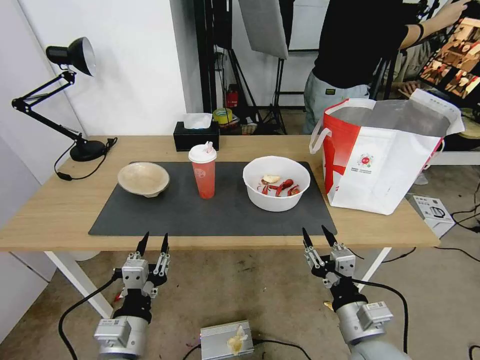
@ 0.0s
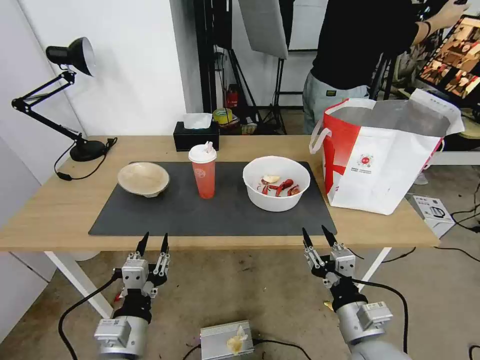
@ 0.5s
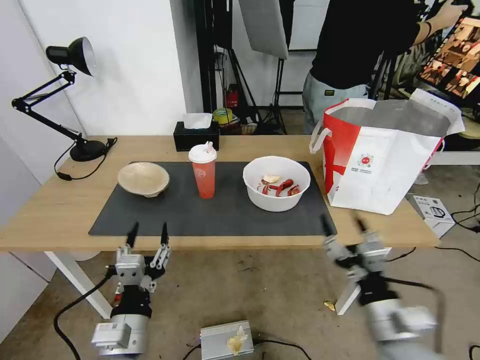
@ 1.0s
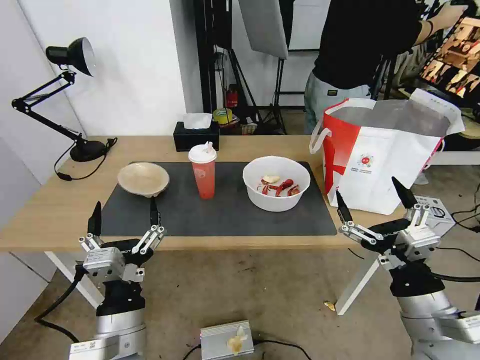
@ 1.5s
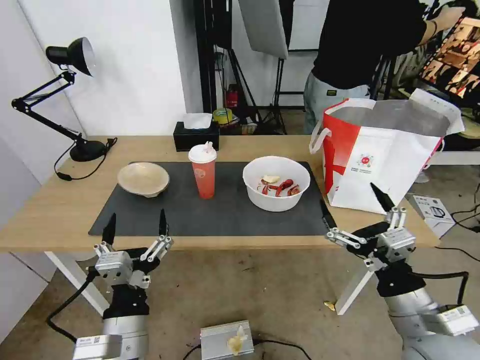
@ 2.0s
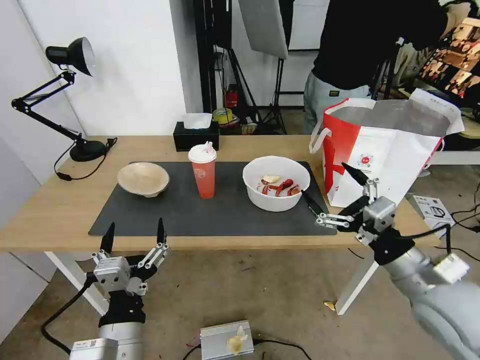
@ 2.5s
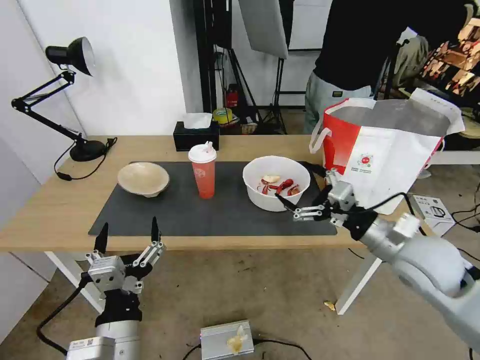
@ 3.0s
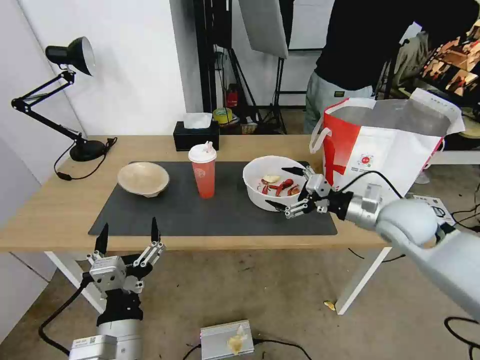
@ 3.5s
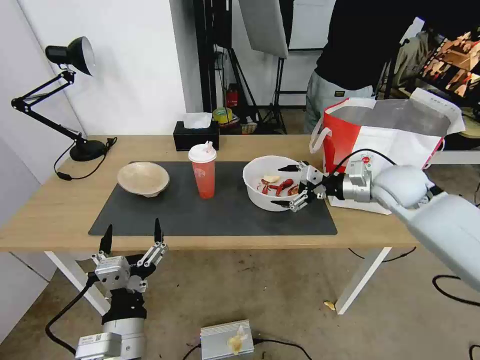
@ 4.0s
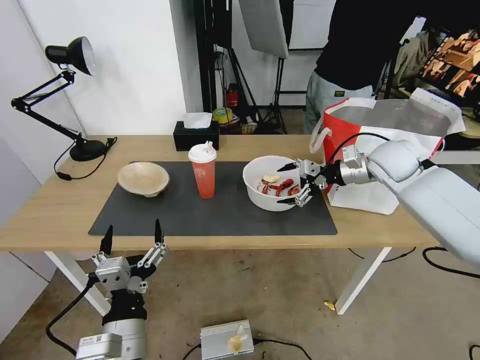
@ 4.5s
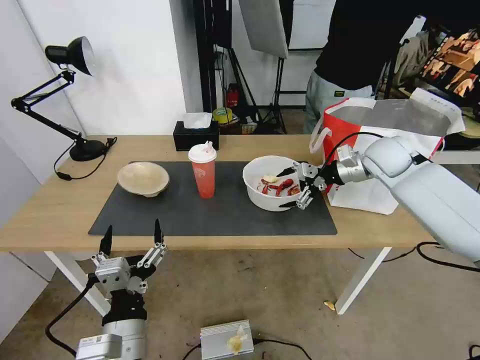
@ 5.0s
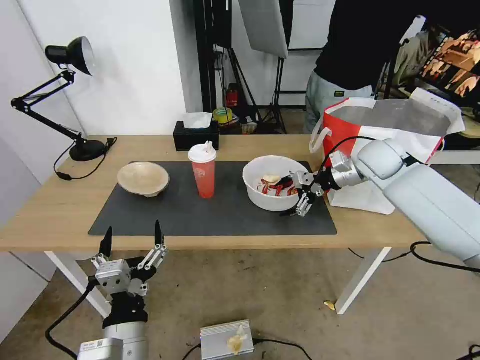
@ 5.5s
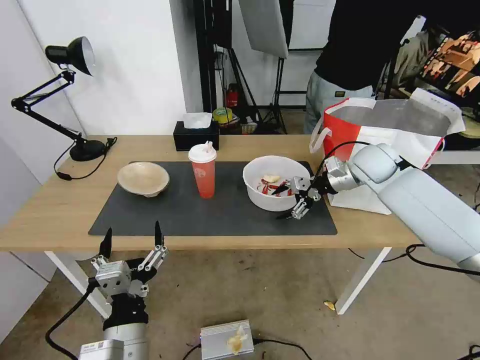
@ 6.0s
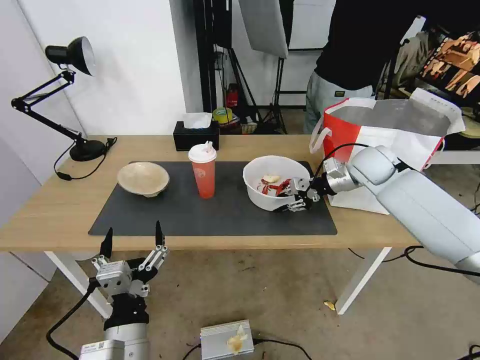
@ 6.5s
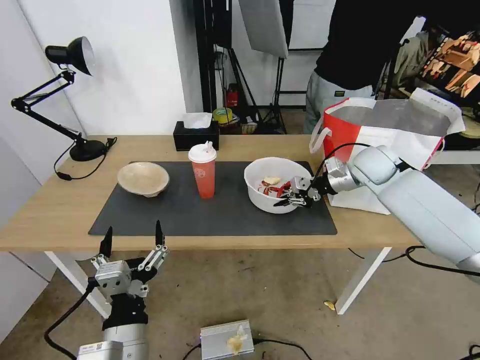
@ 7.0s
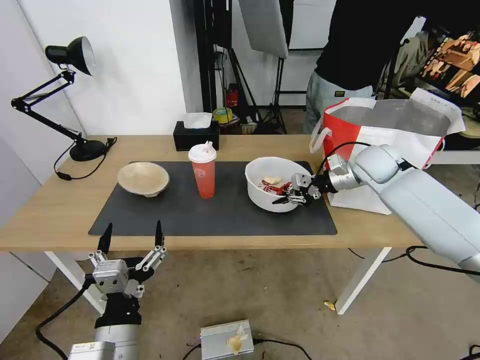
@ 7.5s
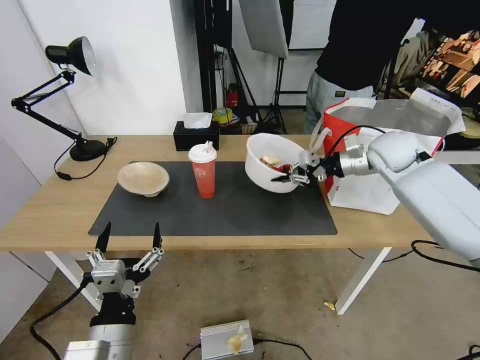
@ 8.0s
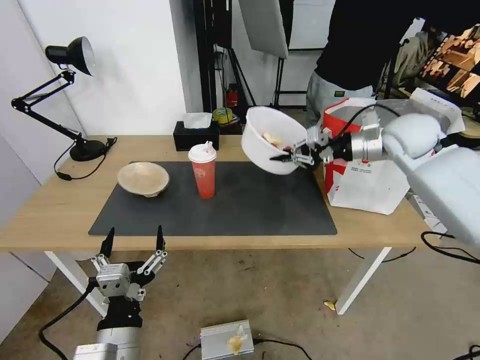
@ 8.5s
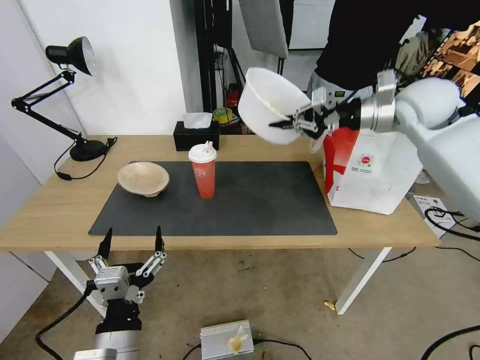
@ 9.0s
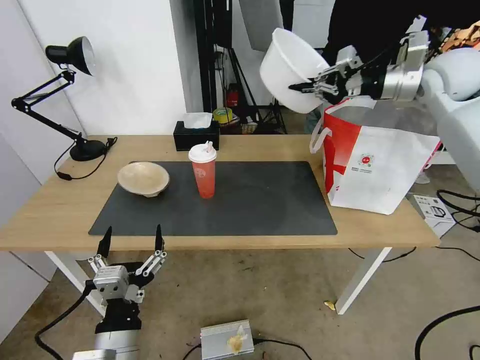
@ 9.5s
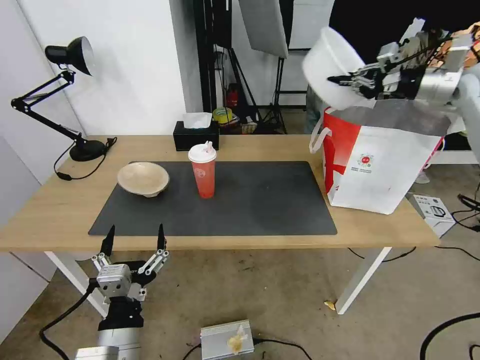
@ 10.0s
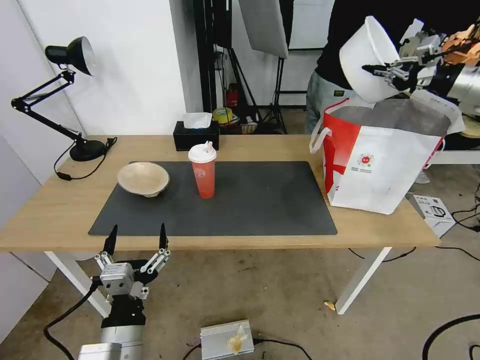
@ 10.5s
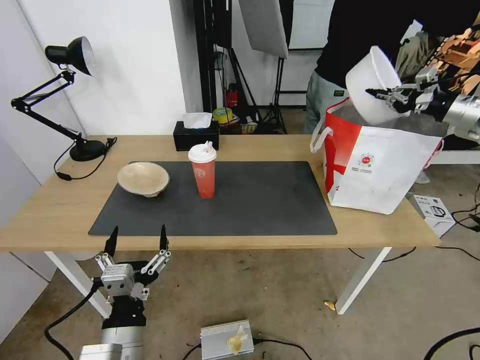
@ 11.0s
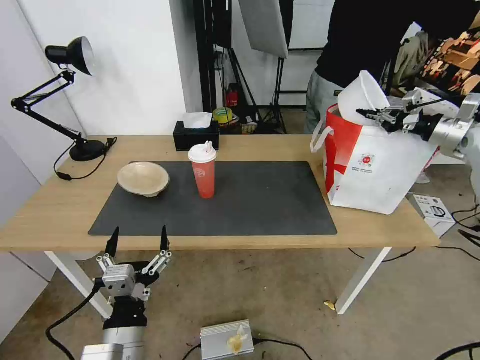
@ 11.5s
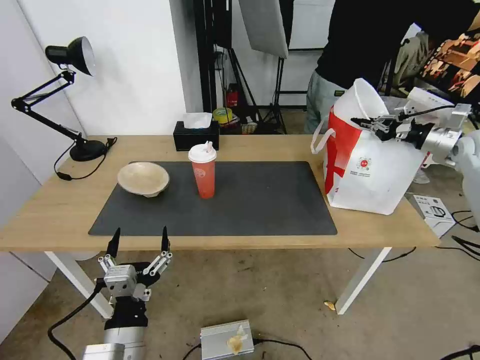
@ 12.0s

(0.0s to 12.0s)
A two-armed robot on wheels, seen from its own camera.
Task of the whole recording: Pick up the trash from the table and place it into the takeout bag.
2.0s - 4.0s: The right gripper is displaced forward by about 30 cm.
4.0s - 6.0s: The right gripper shifts approximately 10 cm forward.
6.0s - 8.0s: The right gripper closes.
8.0s - 10.0s: The right gripper travels upward and to the right by about 20 cm.
10.0s - 12.0s: The right gripper heads downward and to the right, covering about 15 cm.

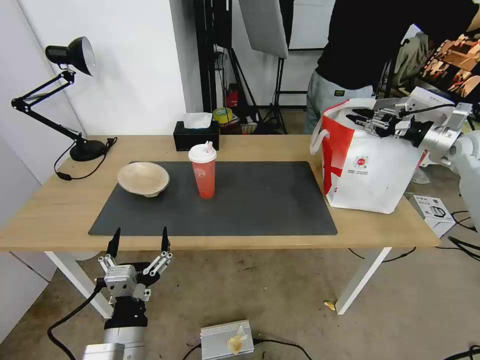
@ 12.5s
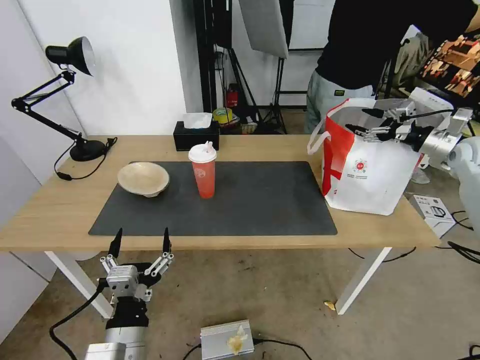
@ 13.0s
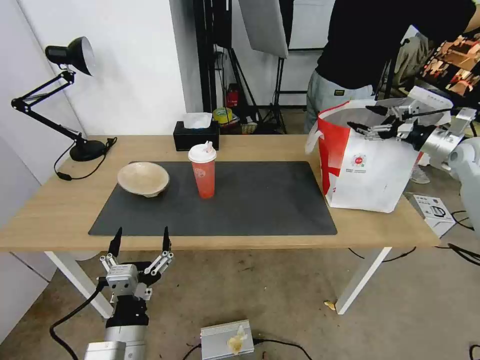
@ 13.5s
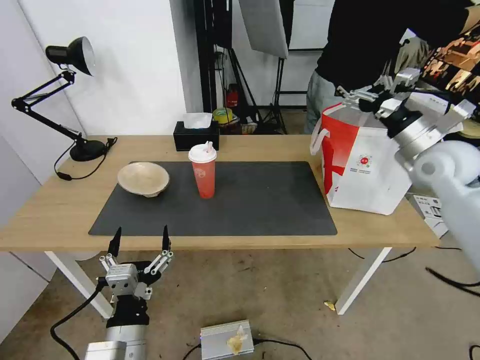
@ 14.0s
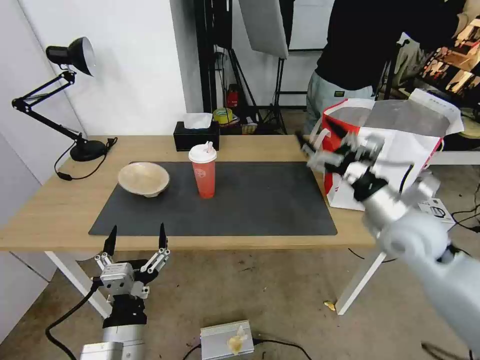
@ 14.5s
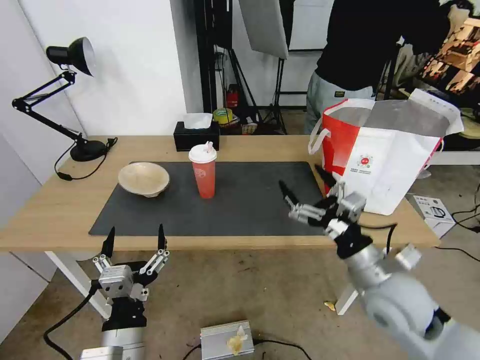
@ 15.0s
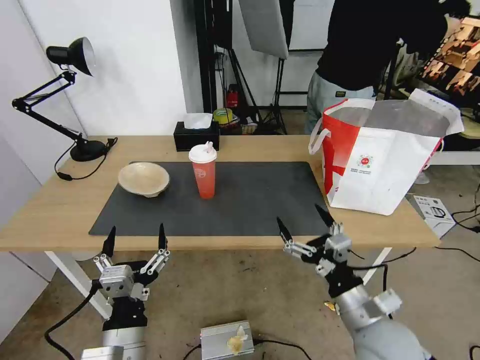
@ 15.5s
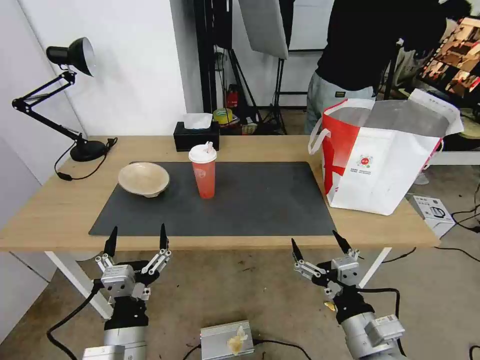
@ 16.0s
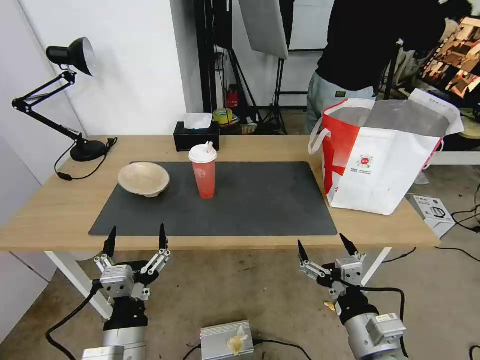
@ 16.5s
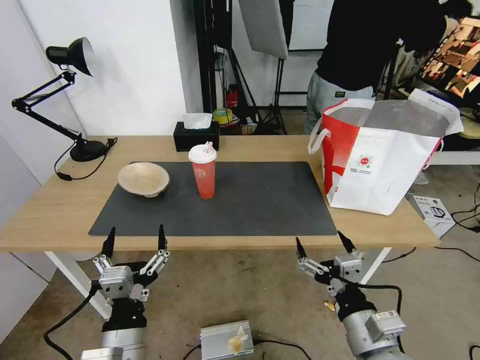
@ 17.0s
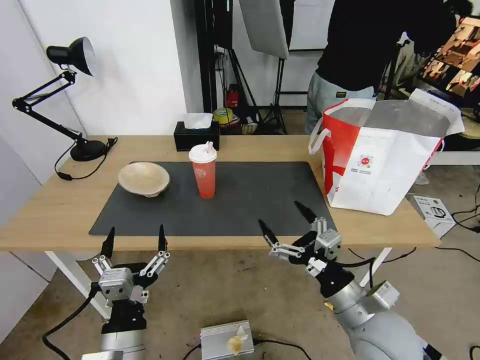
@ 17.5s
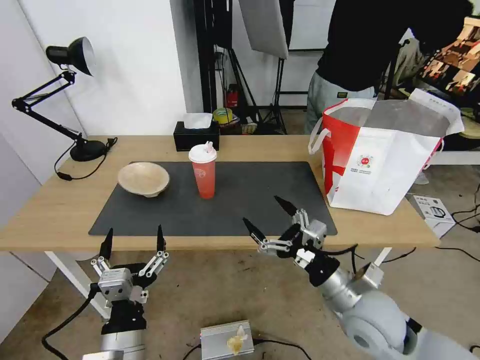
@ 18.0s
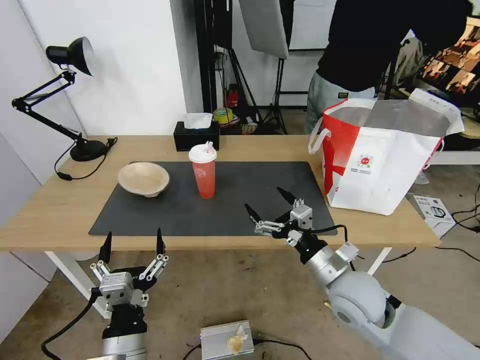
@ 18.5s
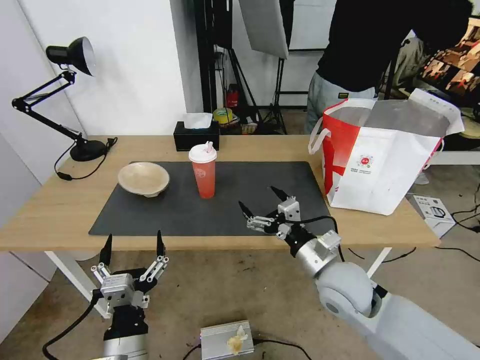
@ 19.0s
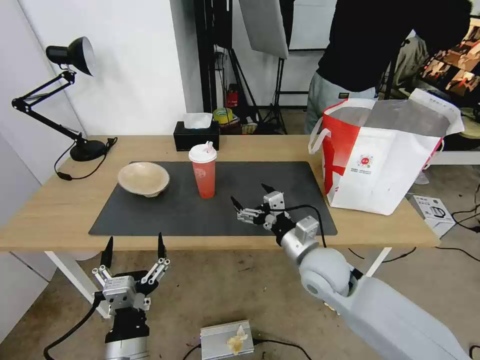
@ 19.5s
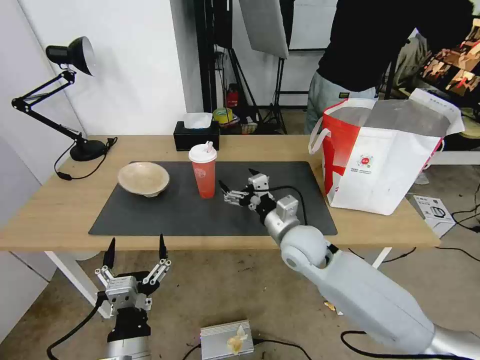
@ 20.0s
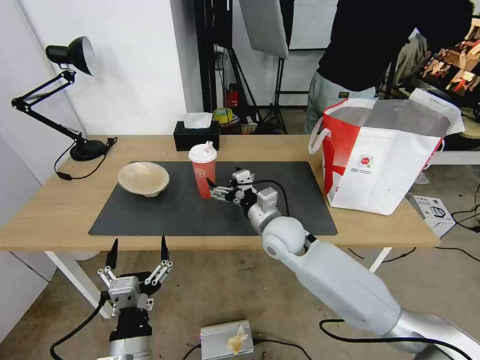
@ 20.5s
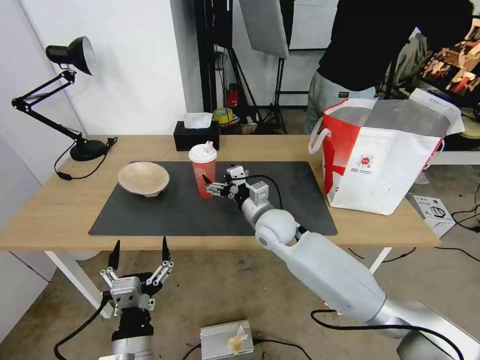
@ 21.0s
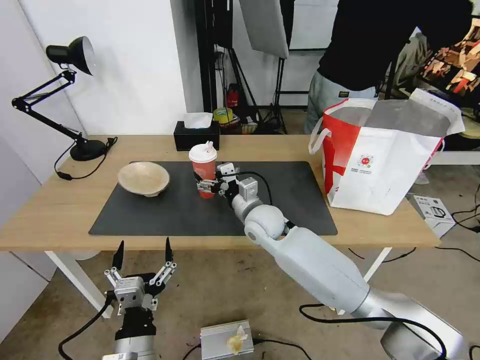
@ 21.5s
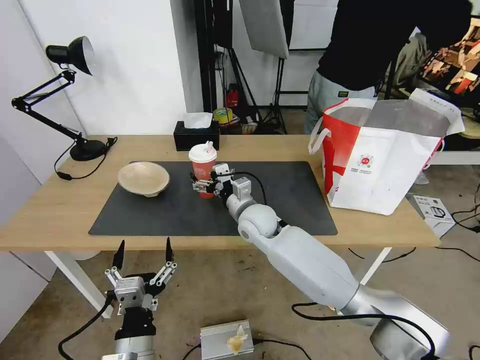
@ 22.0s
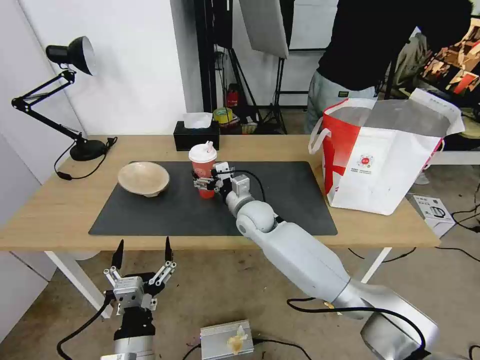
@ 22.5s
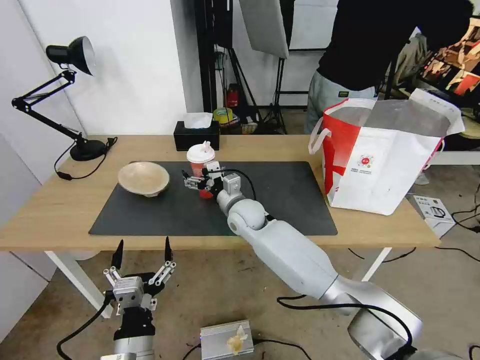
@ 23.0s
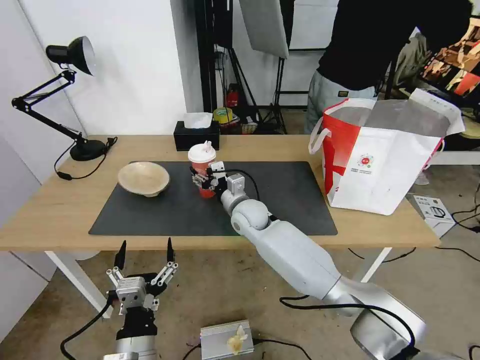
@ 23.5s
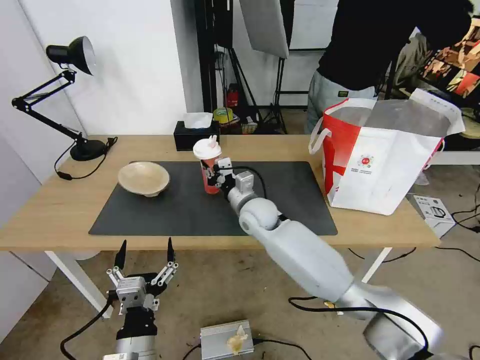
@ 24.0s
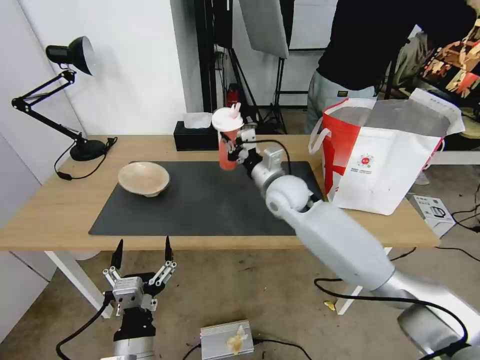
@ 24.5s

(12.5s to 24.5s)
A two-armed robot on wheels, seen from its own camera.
Task of the whole recording: Pick up the trash from the table and place it into the takeout bag.
12.5s - 14.5s: The right gripper travels to the left and backward by approximately 30 cm, and opens.
14.5s - 16.5s: The right gripper goes approximately 25 cm backward and downward.
16.5s - 18.5s: The right gripper travels forward by about 15 cm.
18.5s - 20.5s: The right gripper shifts approximately 20 cm forward and to the left.
20.5s - 22.5s: The right gripper moves forward and to the left, approximately 10 cm.
22.5s - 24.5s: The right gripper shifts roughly 10 cm upward and to the right, and closes its fingers.

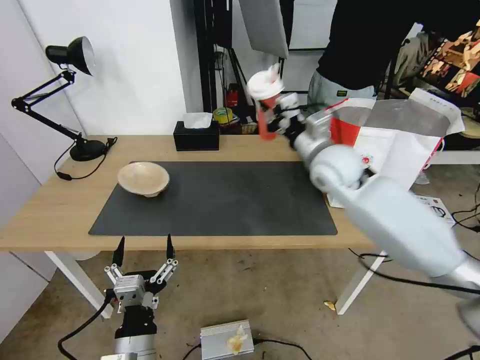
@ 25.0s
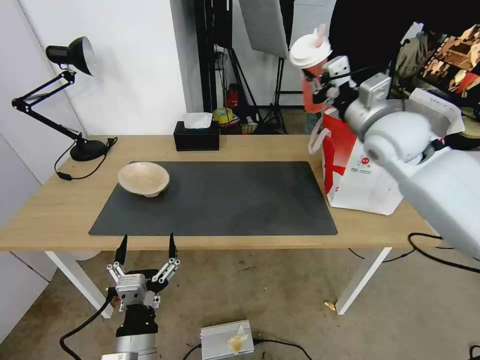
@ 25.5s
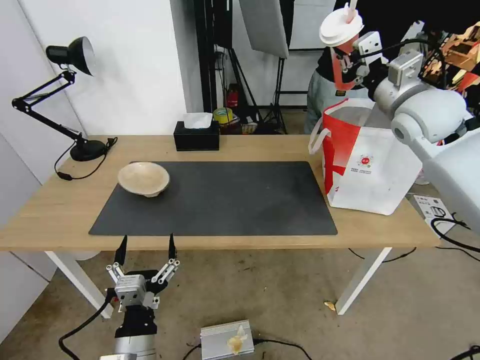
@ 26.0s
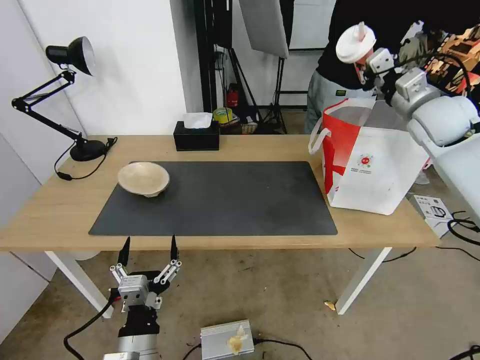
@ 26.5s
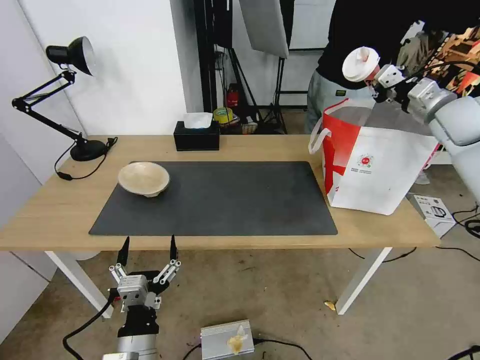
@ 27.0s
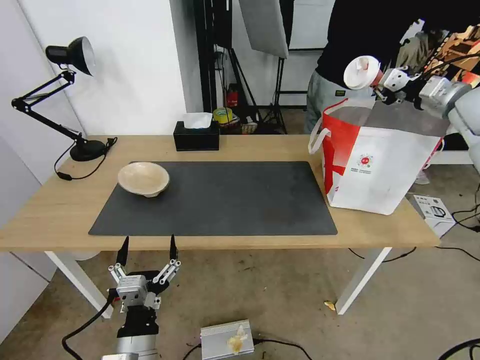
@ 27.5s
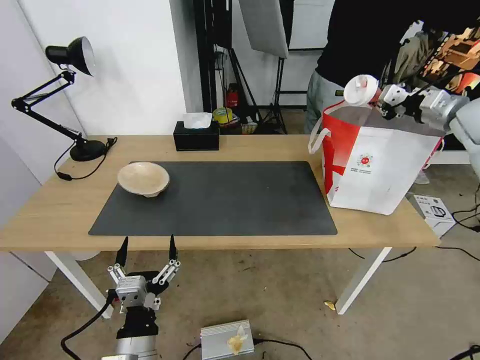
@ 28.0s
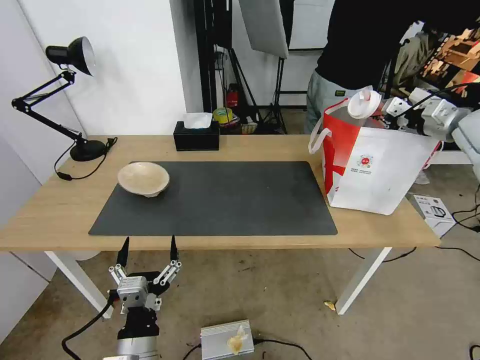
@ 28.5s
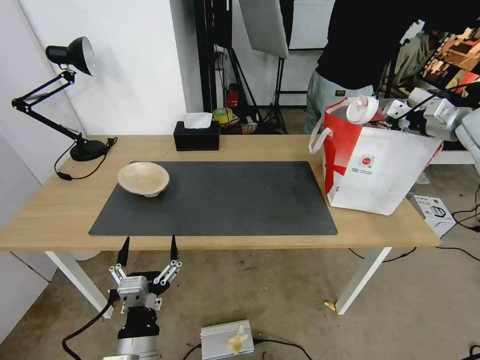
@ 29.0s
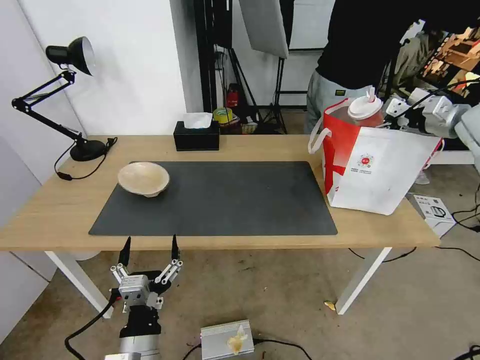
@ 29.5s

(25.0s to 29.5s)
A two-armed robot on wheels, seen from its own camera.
Task of the whole recording: Pick up the trash from the table and place it into the takeout bag.
25.0s - 27.0s: The right gripper travels to the right by some 25 cm.
27.0s - 29.5s: The right gripper goes about 5 cm to the right, and opens up.
